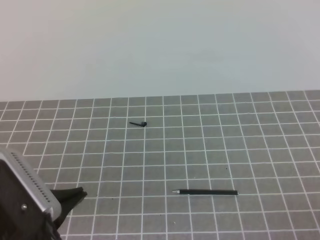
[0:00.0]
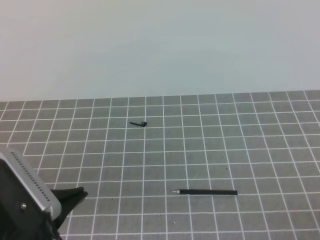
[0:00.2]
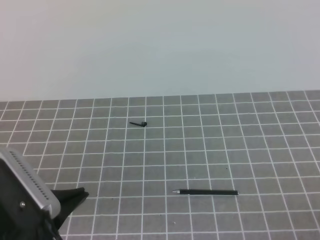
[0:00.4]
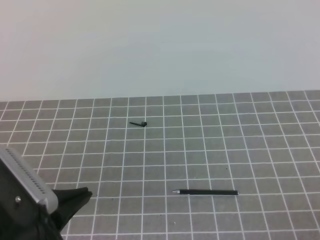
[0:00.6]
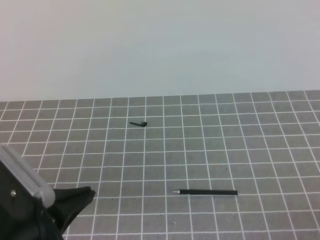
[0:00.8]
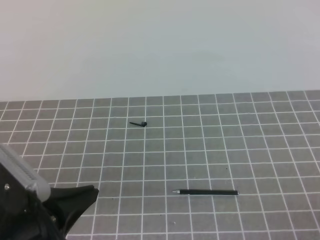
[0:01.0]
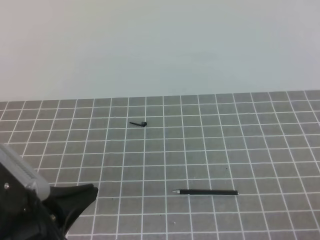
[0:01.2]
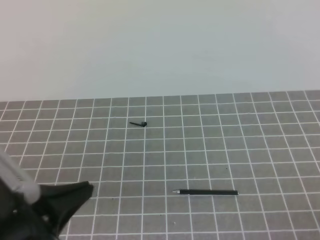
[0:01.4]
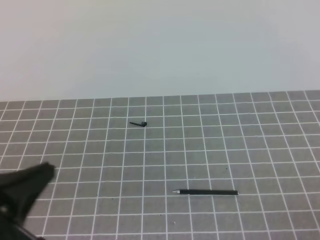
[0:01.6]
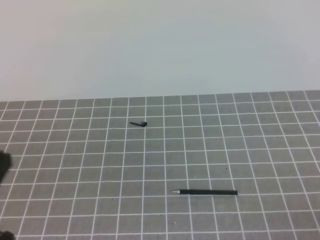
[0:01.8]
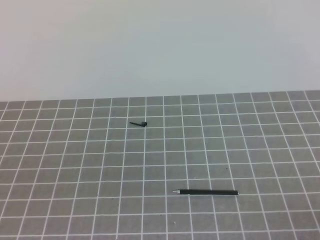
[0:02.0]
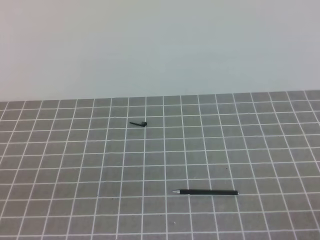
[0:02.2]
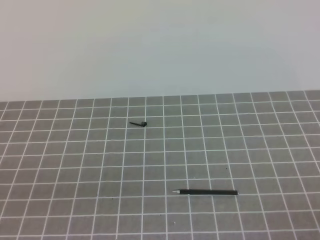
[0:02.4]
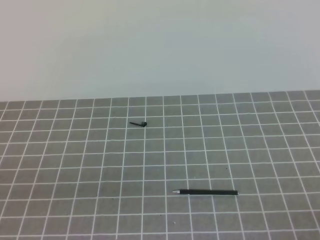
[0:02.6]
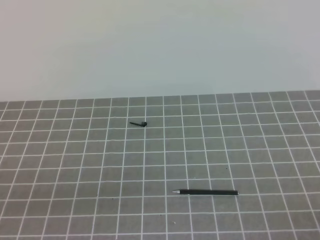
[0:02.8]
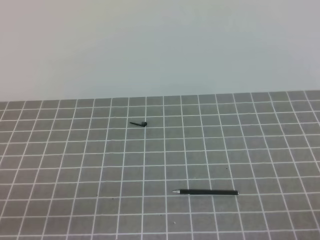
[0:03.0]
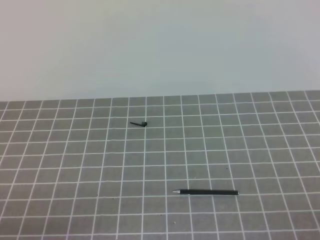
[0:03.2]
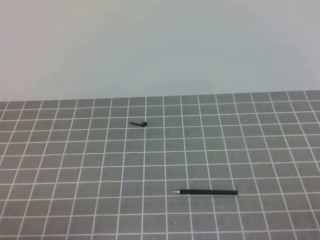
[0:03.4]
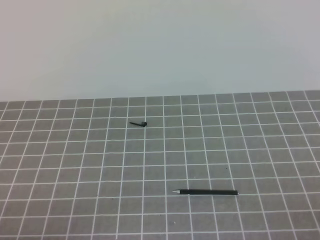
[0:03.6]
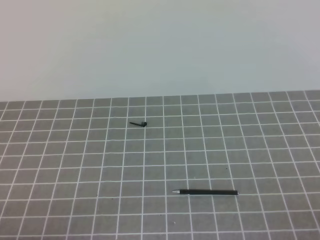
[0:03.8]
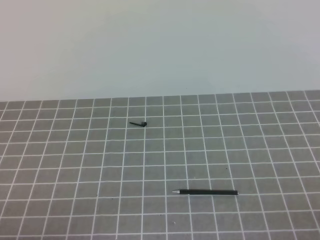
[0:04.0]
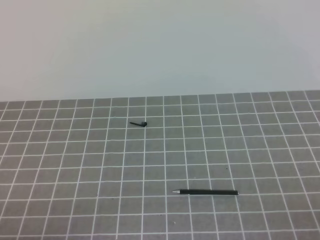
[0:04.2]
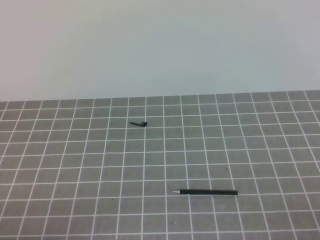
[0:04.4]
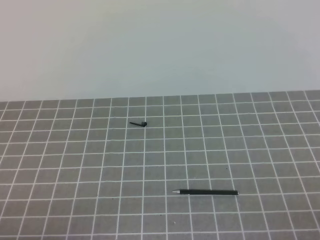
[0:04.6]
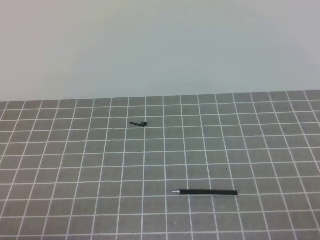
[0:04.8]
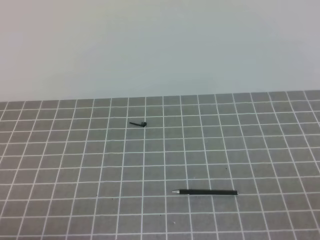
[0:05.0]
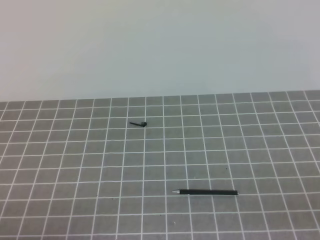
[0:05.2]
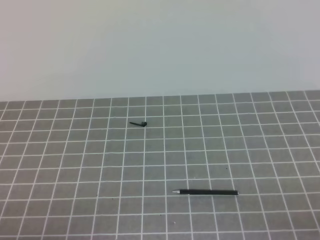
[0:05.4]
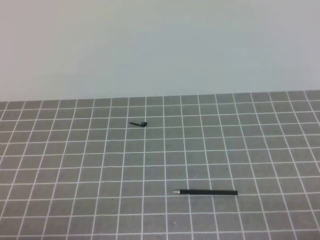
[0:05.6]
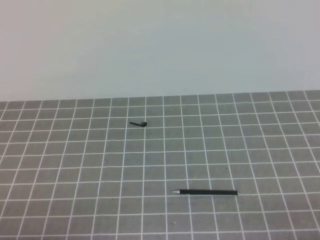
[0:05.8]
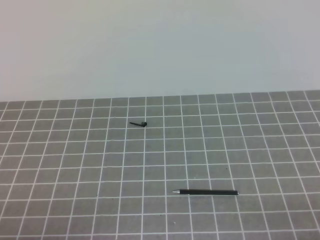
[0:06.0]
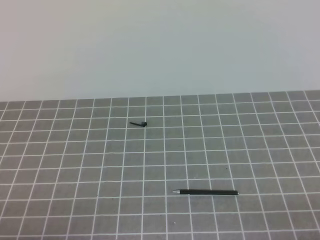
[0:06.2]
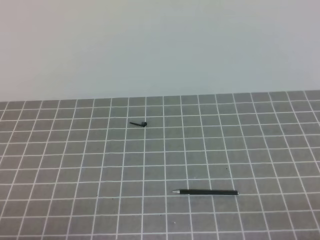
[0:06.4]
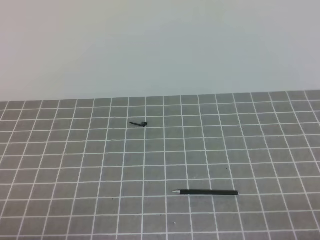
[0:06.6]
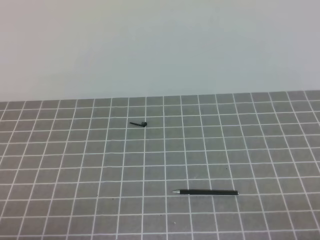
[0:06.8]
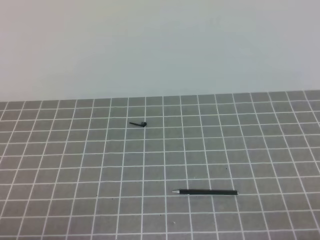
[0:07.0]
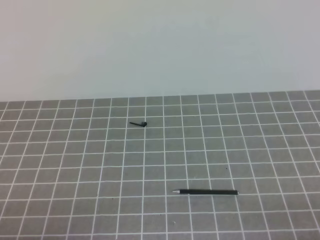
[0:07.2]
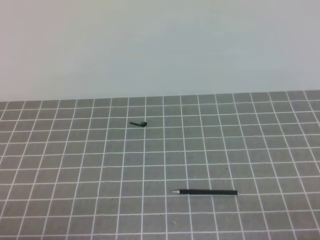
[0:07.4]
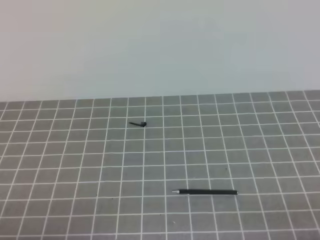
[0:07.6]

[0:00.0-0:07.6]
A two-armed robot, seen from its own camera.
Task of the whole recording: on the grey tablecloth, hold the pen cap in one hand and the pen in the other, then cover the pen cap.
0:01.6 to 0:03.0: The left gripper goes roughly 10 cm downward and to the left.
0:06.0 to 0:07.6: Both grippers stay put.
